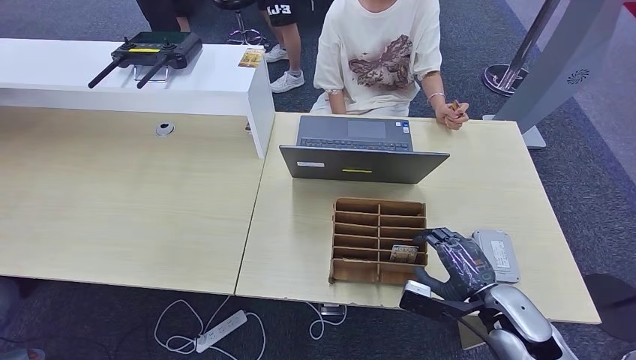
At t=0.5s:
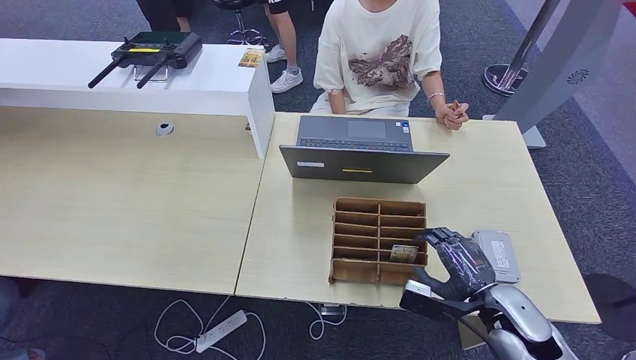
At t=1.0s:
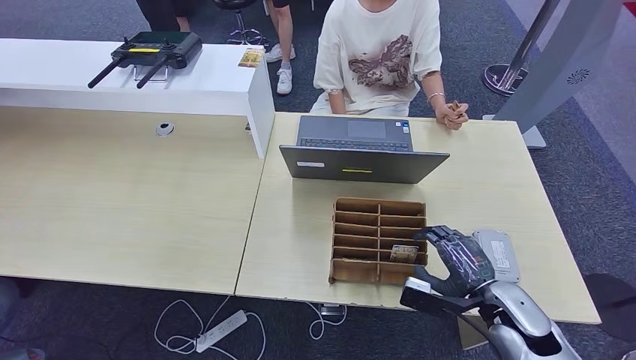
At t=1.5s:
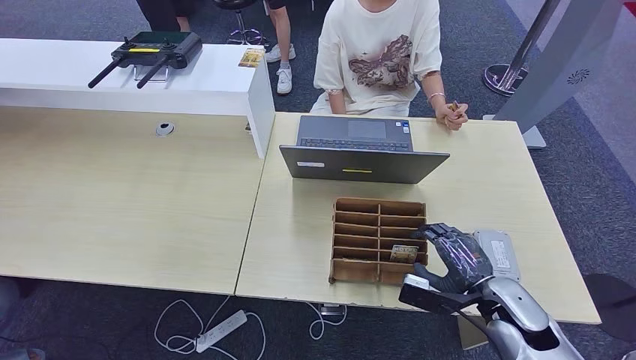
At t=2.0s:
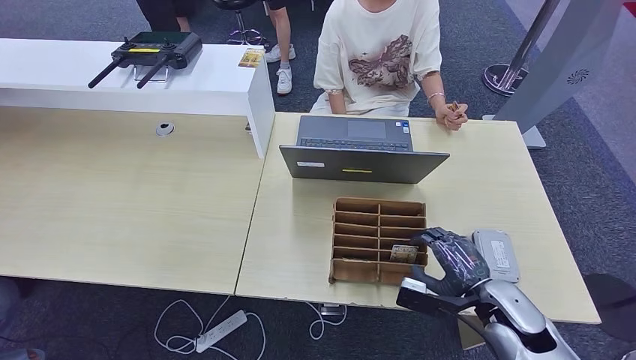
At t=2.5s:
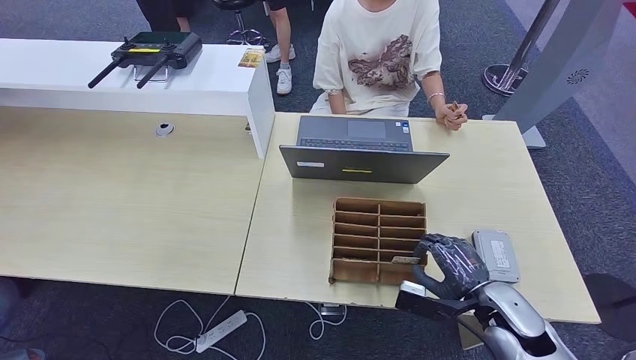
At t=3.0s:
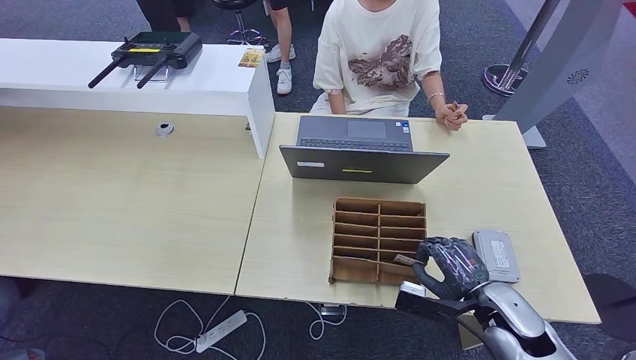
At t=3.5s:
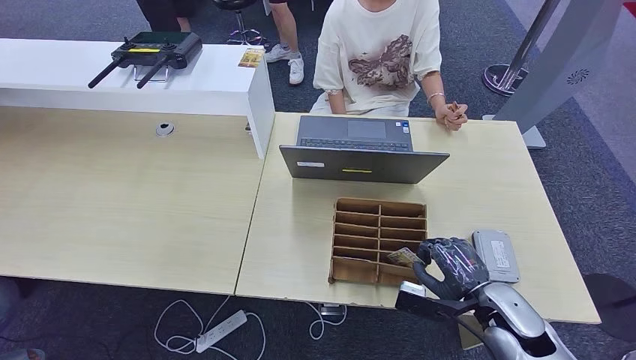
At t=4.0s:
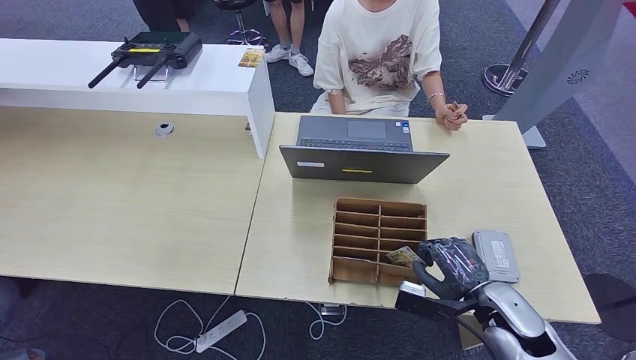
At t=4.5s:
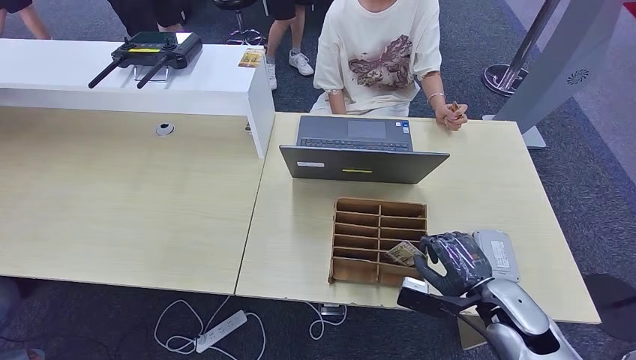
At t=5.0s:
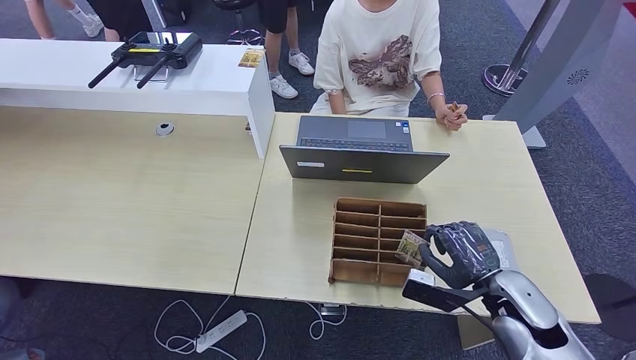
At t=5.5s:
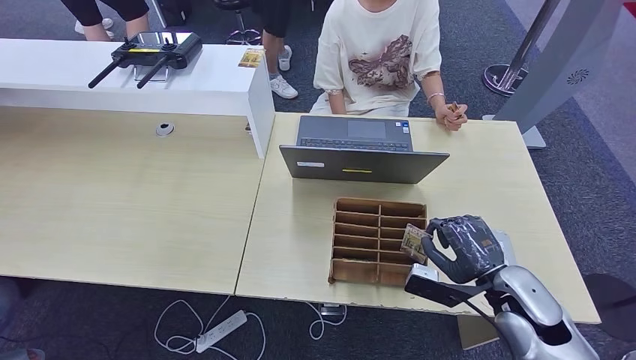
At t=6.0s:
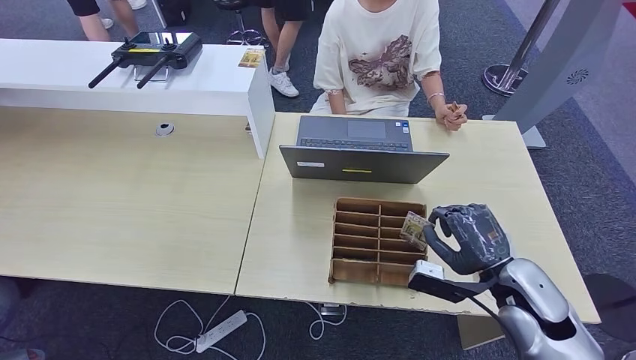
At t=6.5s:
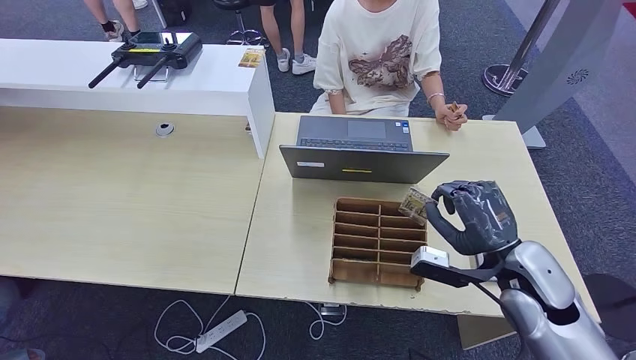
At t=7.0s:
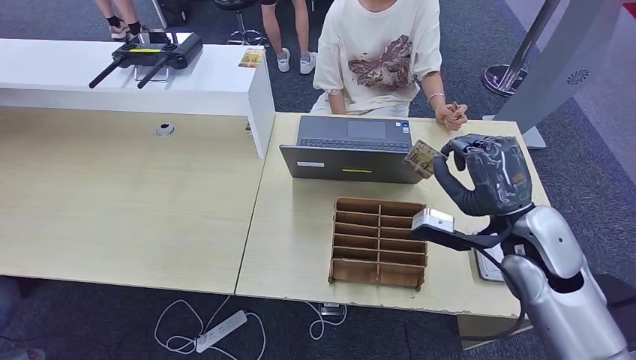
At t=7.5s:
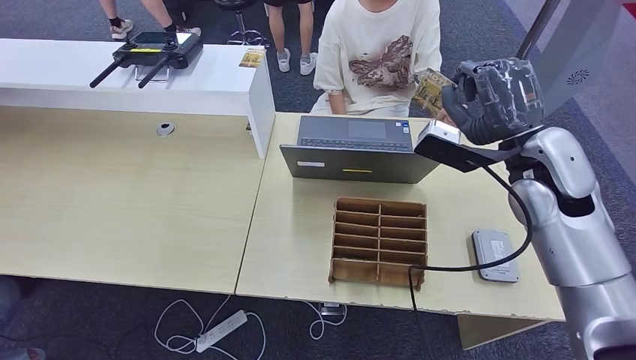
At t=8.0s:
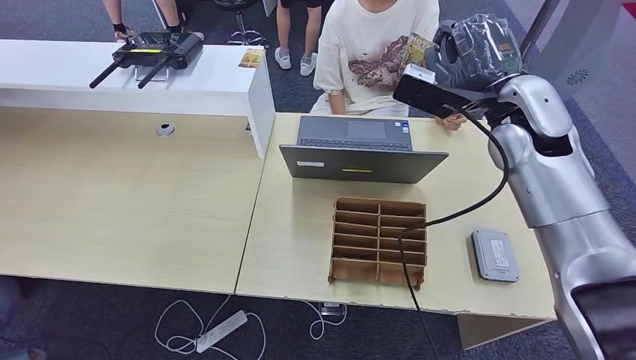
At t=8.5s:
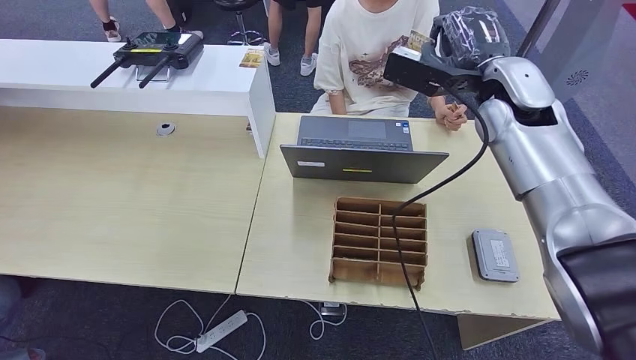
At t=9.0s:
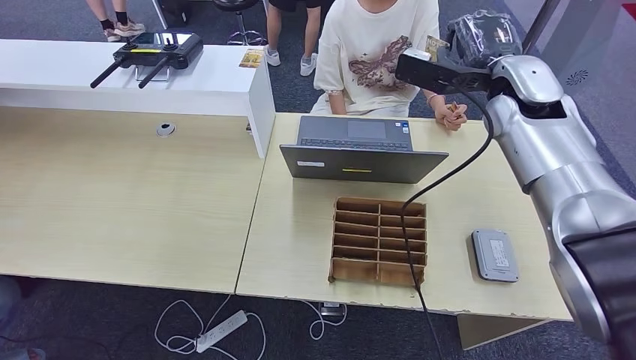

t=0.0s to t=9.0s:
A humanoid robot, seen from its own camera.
Step, t=0.0s to t=6.5s: Pick up the room key from the key card box.
Step, t=7.0s to t=9.0s: Hand the room key to the person.
t=0.0s to t=4.5s: Neither hand changes place.
t=4.5s to t=7.0s: The right hand moves upward and forward, approximately 15 cm.
t=7.0s to t=9.0s: The right hand travels forward and upward by roughly 20 cm.
